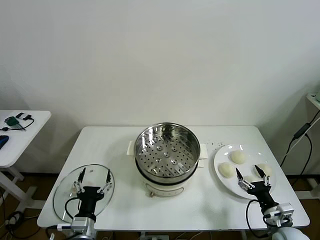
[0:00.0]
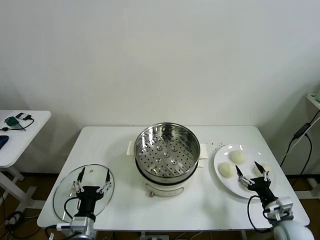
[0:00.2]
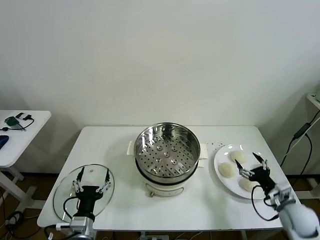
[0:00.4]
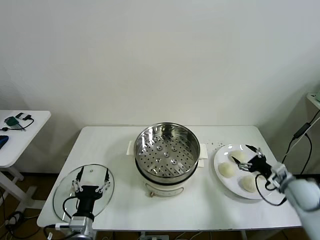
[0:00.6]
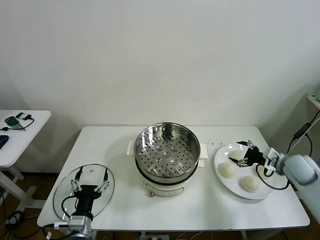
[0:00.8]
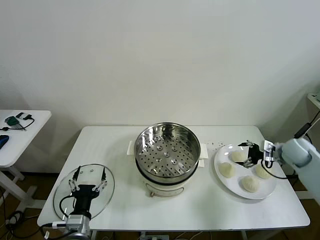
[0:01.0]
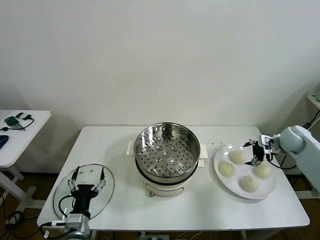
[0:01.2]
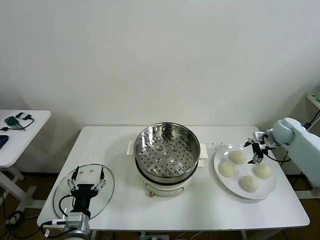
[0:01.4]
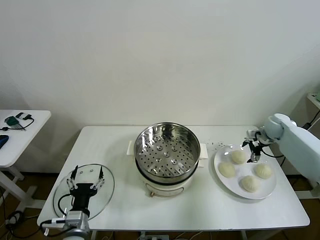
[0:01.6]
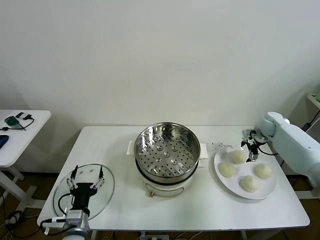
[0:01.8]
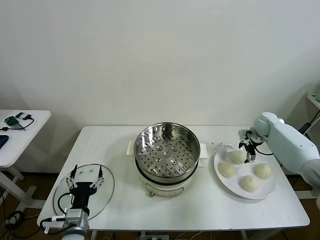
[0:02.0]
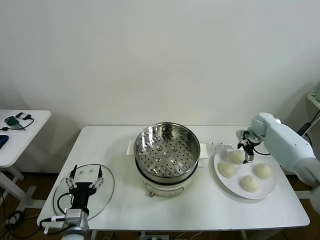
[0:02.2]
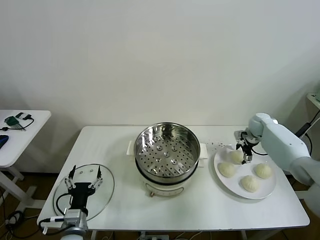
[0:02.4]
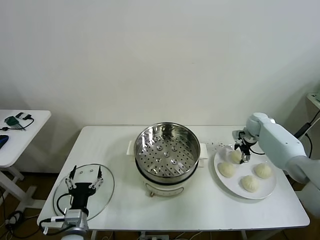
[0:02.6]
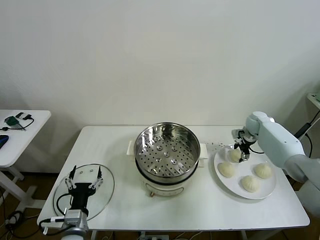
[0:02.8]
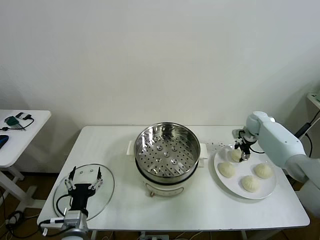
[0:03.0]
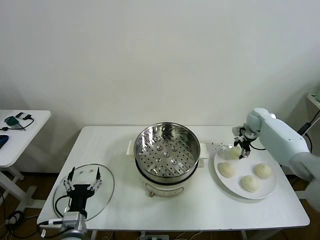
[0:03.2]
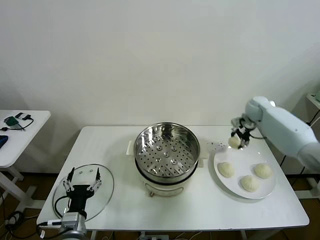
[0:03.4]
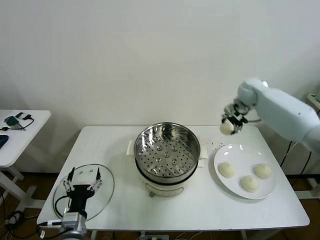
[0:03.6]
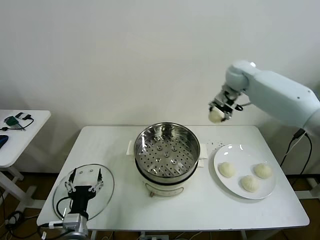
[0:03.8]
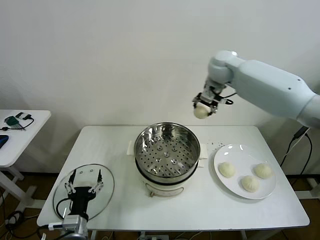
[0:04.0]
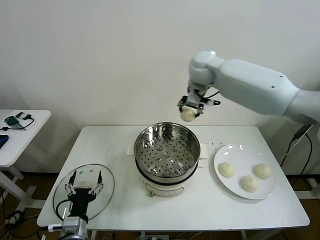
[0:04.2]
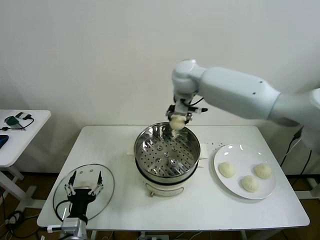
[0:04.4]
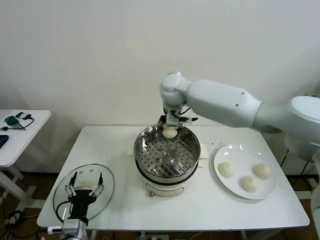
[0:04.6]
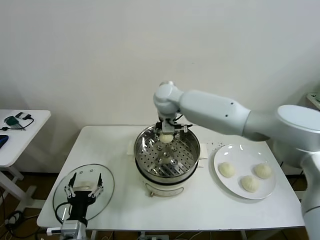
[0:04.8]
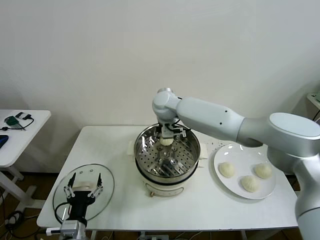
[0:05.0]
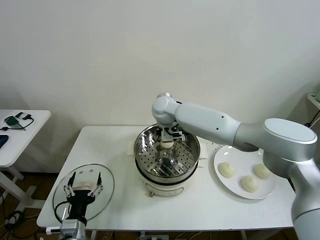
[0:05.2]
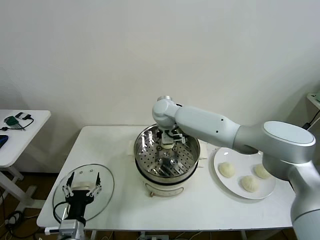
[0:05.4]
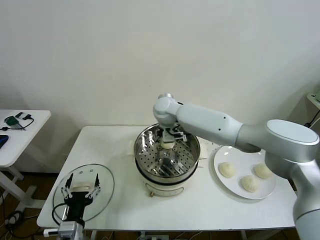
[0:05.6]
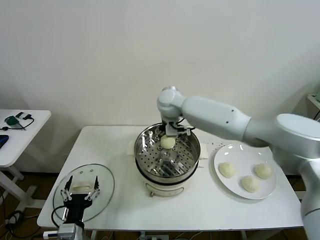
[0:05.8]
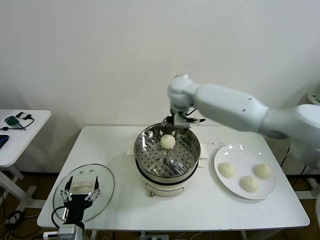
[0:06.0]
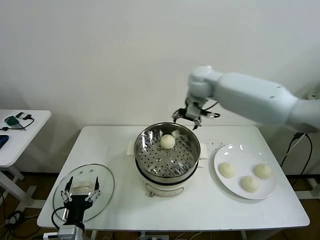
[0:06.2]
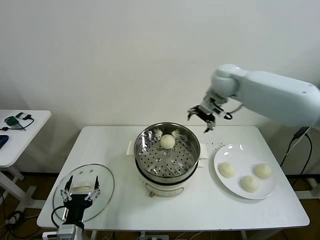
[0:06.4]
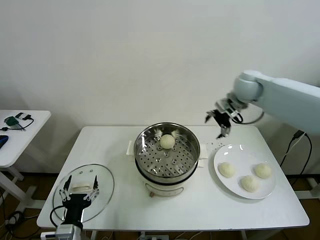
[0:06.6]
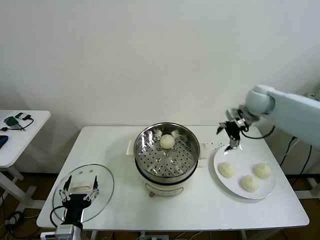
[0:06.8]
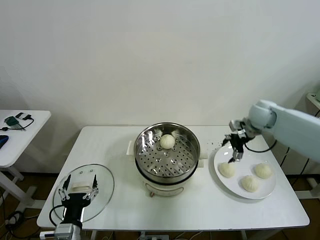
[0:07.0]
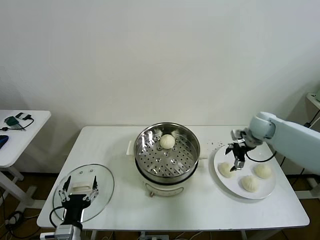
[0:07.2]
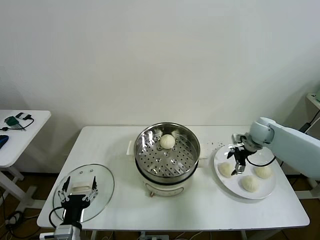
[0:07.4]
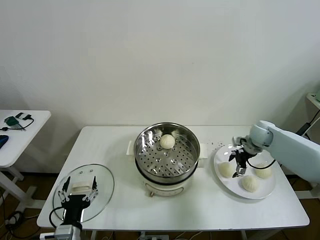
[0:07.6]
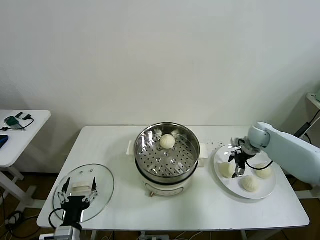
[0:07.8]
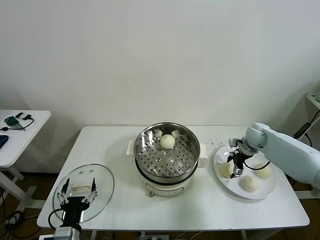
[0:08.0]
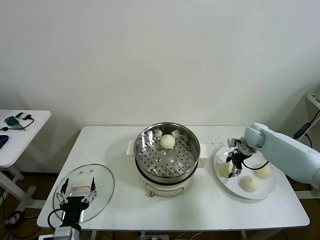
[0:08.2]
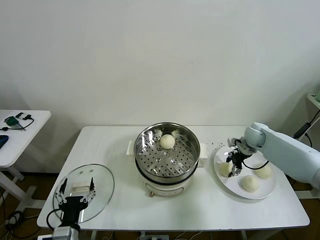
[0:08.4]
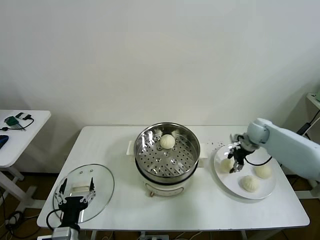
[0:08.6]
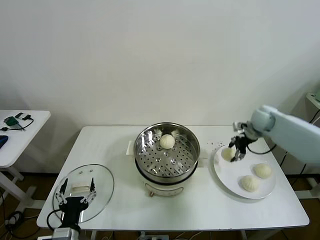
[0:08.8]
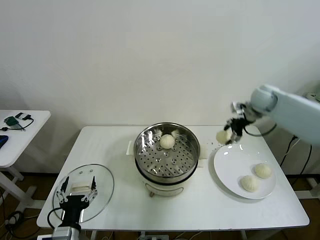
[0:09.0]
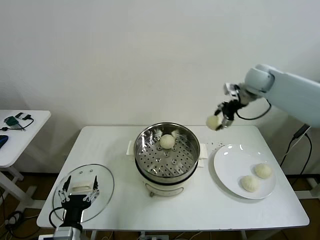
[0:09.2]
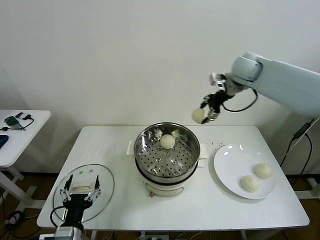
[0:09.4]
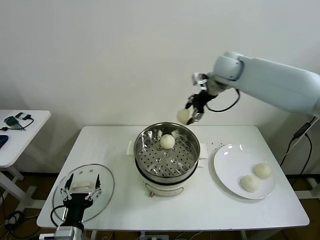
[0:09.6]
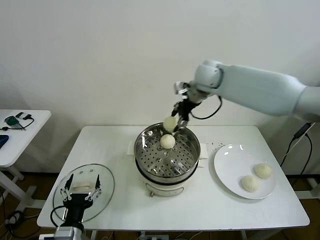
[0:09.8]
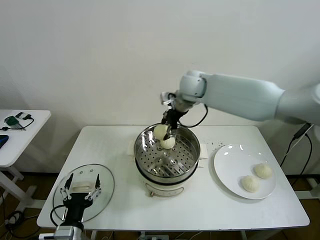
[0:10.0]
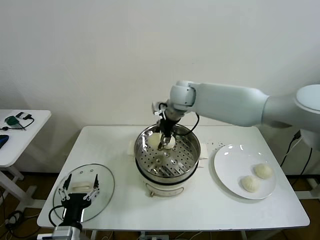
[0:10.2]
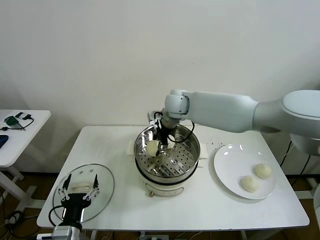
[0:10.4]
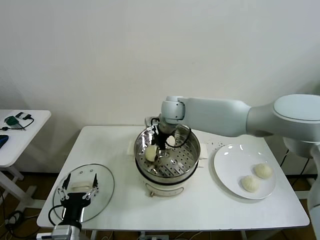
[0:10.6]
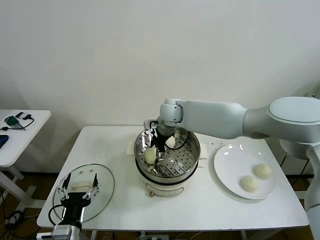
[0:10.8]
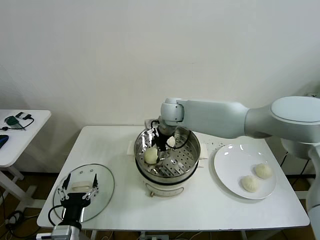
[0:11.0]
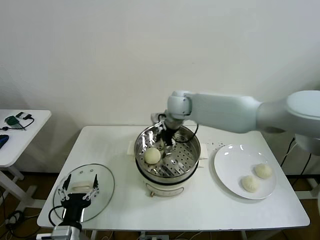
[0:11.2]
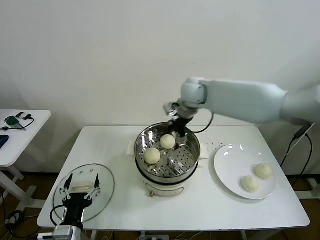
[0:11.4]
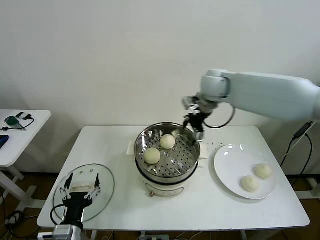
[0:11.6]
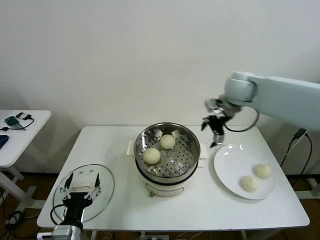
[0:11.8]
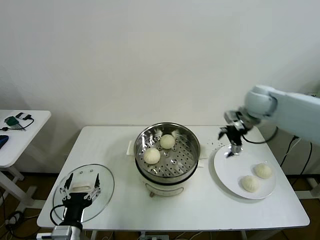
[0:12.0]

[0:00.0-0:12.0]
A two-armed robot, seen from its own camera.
Task of the whole recording: take steamed baozi put them in steamer then cover it.
Step, 0.0 to 2.8 s: Grasp the baozi in the plate with right gripper.
Step, 3.0 to 5.6 s: Place the baozi on the steamer with right gripper.
Step, 5.8 to 8.4 s: Grasp the baozi in the plate with right gripper.
Step, 8.6 to 11.0 s: Place the baozi on the steamer with right gripper.
1.6 to 3.0 s: The right gripper shifts by approximately 5 cm, and closes its fingers.
3.0 to 4.4 s: The right gripper heads to the left and upward, covering about 40 cm.
4.4 to 6.0 s: The right gripper moves about 10 cm downward and comes back, and opens.
6.0 to 7.6 s: The right gripper moves to the right and downward, approximately 35 cm.
7.6 to 9.0 s: The right gripper heads upward, covering roughly 15 cm, and closes.
9.0 to 10.4 s: The right gripper travels to the left by roughly 30 cm.
10.4 to 12.0 s: The right gripper heads to the right, covering some 30 cm, and opens its fingers.

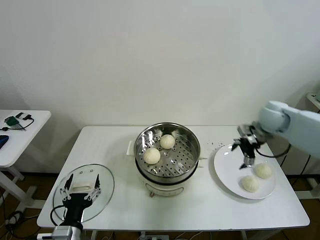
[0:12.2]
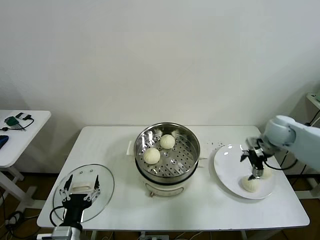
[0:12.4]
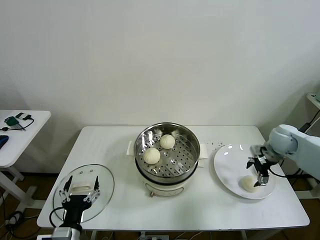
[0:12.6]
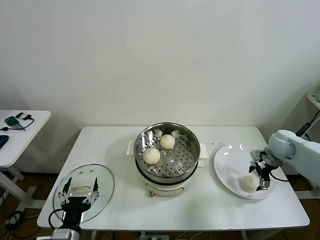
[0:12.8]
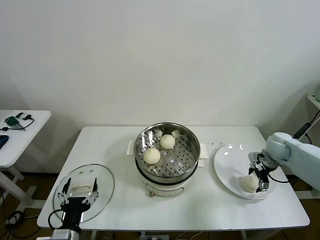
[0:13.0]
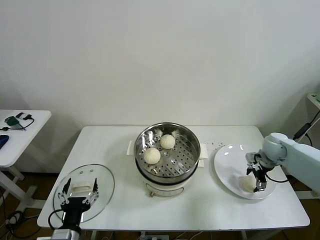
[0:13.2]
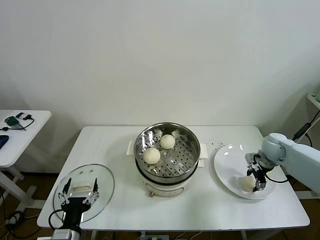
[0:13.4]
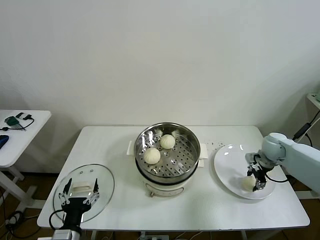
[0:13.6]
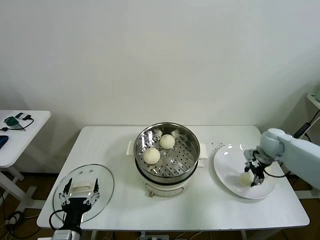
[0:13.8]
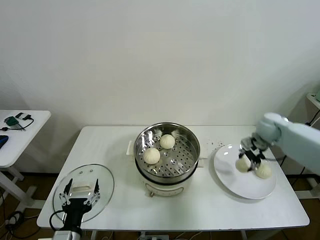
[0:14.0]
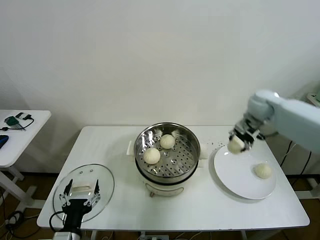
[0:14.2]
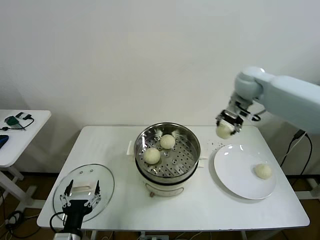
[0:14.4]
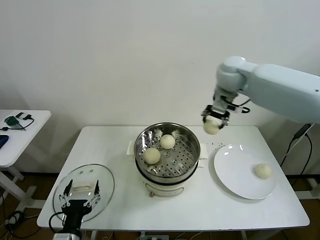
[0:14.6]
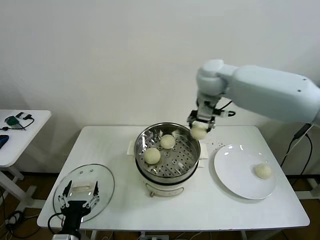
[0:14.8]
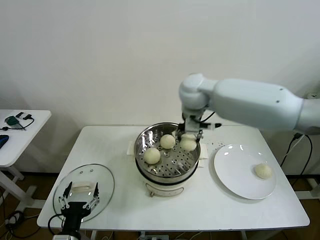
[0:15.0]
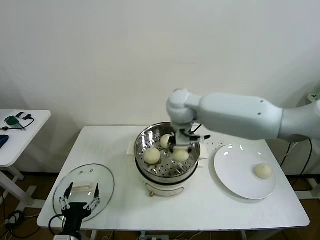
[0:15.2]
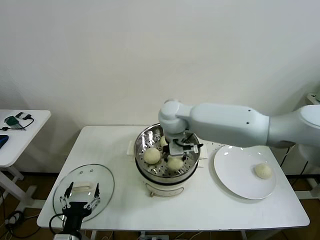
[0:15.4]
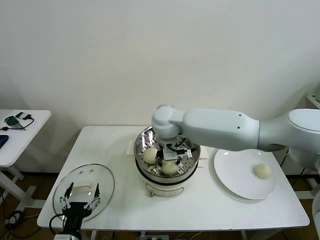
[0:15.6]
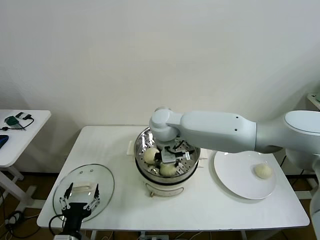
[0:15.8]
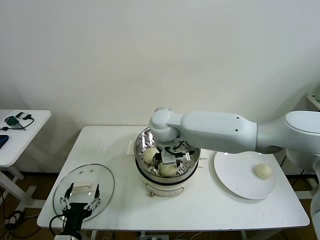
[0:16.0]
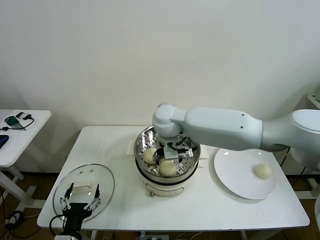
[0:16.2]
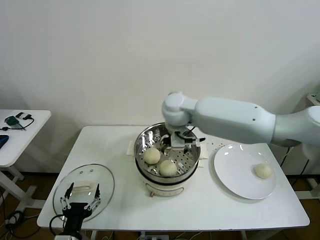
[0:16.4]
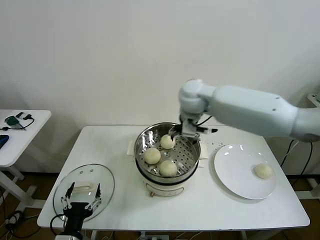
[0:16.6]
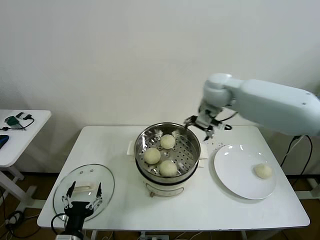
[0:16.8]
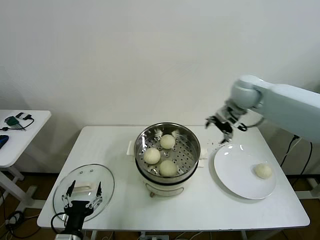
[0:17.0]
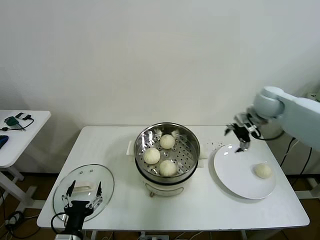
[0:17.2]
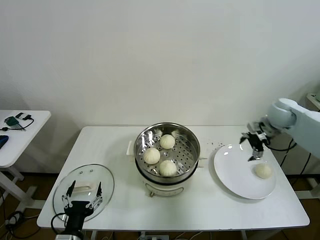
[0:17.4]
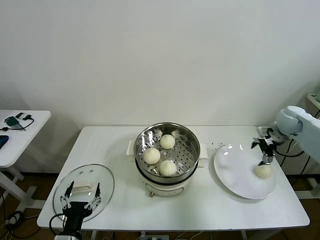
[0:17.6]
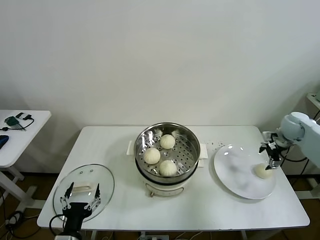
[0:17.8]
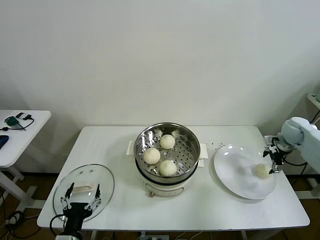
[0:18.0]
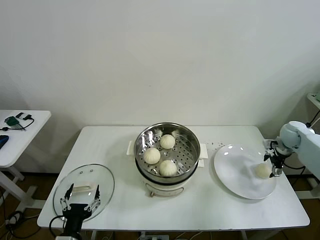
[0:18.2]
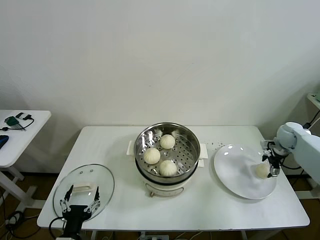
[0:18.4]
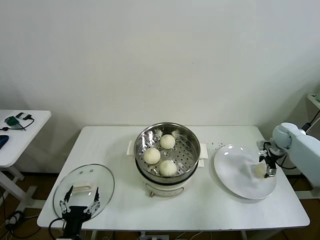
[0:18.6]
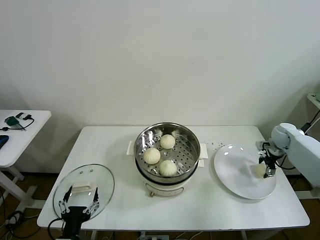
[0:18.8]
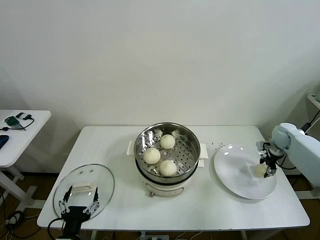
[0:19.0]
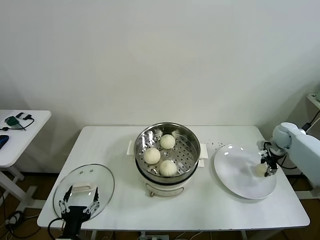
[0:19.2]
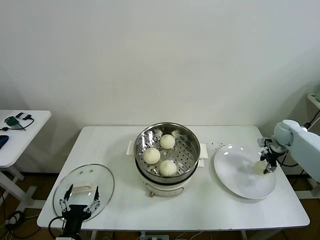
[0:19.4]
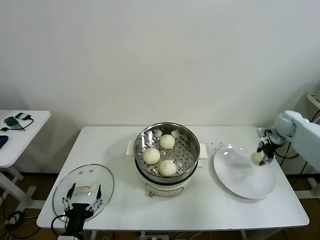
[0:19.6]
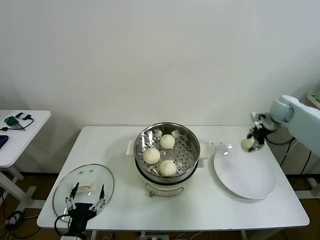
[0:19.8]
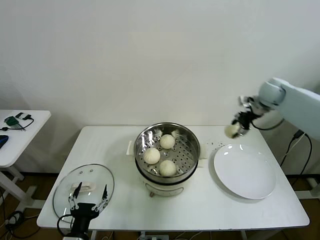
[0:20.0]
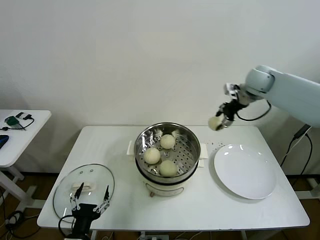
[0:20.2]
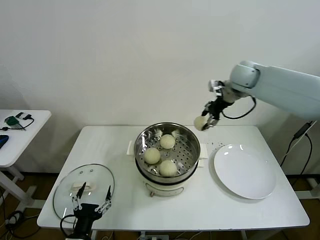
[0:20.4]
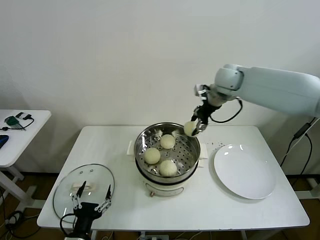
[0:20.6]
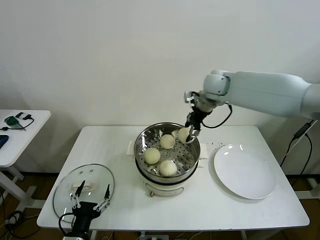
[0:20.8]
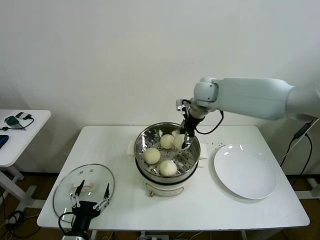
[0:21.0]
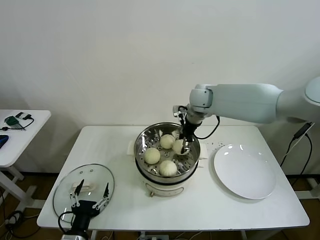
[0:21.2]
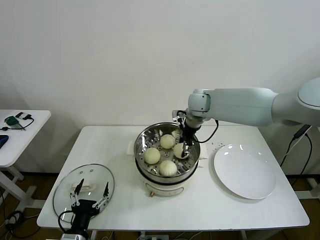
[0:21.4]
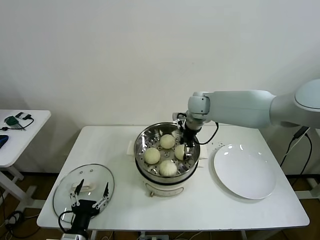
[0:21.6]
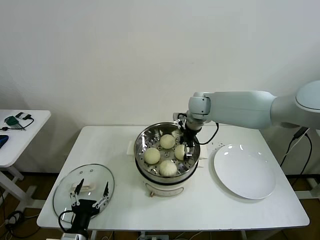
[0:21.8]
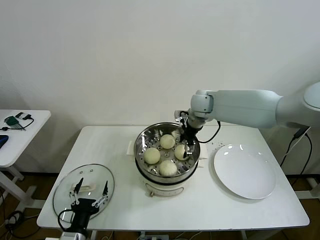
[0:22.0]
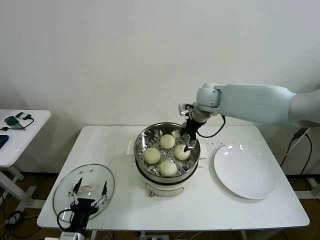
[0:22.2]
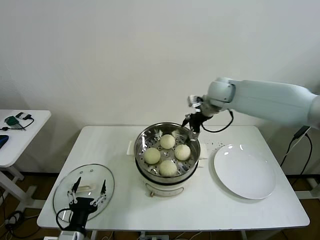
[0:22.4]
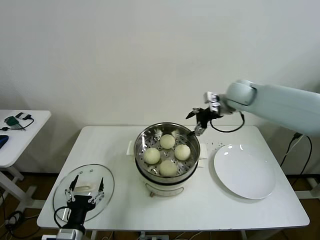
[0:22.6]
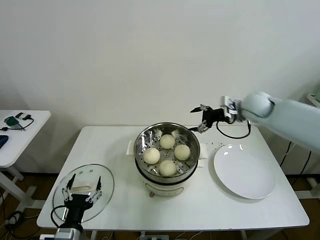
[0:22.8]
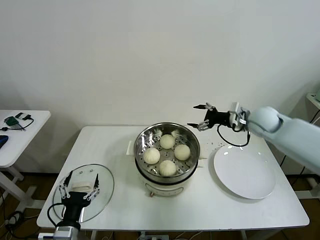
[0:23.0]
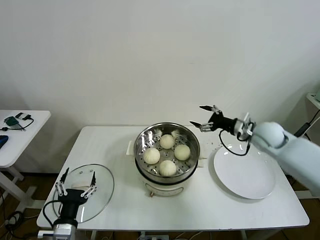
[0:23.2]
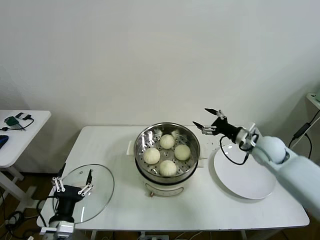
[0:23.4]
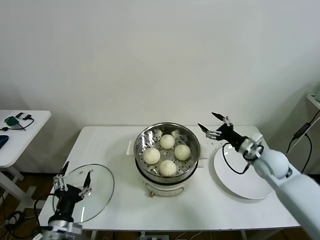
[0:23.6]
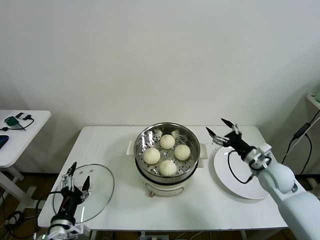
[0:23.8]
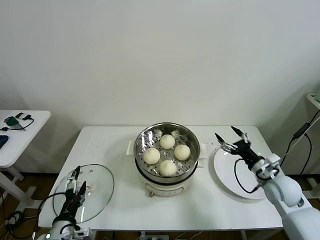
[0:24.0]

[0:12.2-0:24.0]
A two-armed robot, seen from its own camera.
Task of the whole recording: take steamed baozi put them in steamer then cover it.
Step, 12.2 to 13.6 s: Grasp the baozi in the plate with right gripper.
Step, 13.8 to 16.0 s: Place the baozi on the steamer with right gripper.
Step, 16.2 to 19.0 s: Grasp the baozi in the plate with right gripper.
Step, 19.2 to 21.8 s: Place the baozi on the steamer with right gripper.
12.2 to 13.6 s: The right gripper heads downward, covering approximately 10 cm, and closes up.
13.6 to 15.2 s: The right gripper goes some 40 cm to the left and upward.
15.2 to 16.6 s: The right gripper heads to the right, covering roughly 5 cm, and opens.
16.6 to 18.2 s: The right gripper moves to the right and downward, about 40 cm.
18.2 to 19.6 s: The right gripper ends up roughly 5 cm from where it was, and closes.
19.6 to 21.0 s: The right gripper travels to the left by about 35 cm.
21.0 to 22.6 s: The right gripper is displaced to the right by some 10 cm, and opens up.
22.6 to 24.0 s: The right gripper is displaced downward, backward and to the right by some 35 cm.
